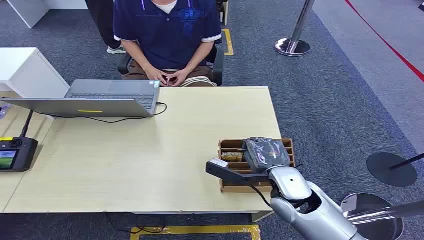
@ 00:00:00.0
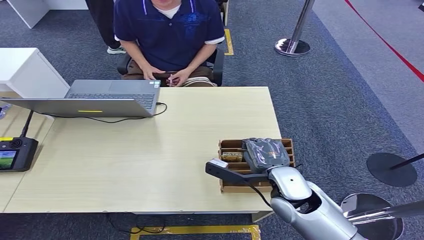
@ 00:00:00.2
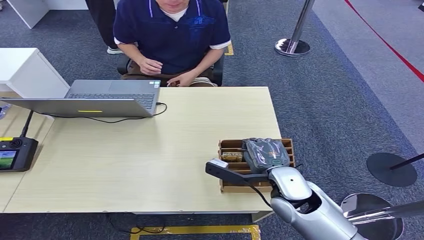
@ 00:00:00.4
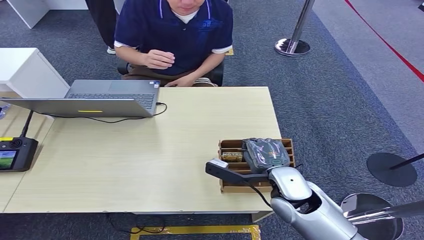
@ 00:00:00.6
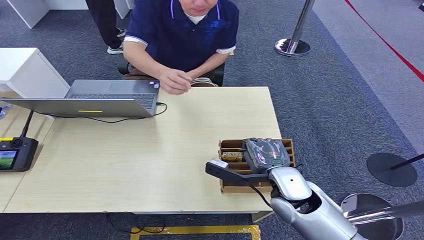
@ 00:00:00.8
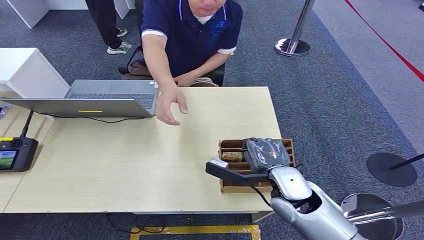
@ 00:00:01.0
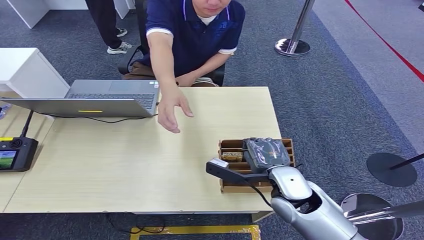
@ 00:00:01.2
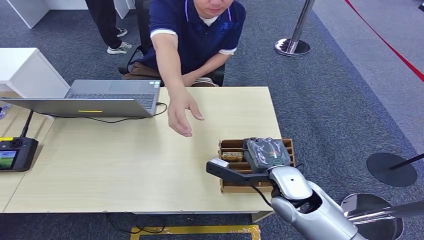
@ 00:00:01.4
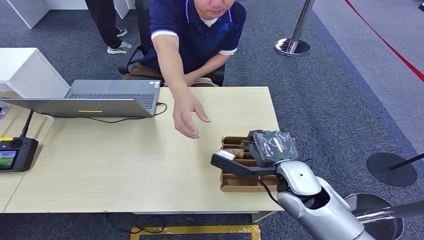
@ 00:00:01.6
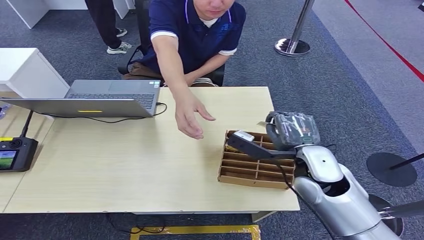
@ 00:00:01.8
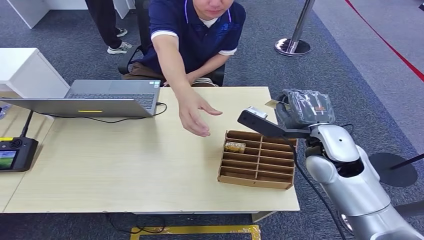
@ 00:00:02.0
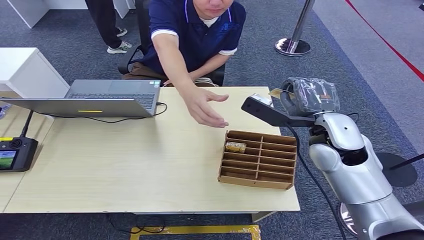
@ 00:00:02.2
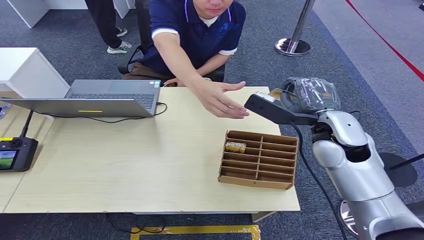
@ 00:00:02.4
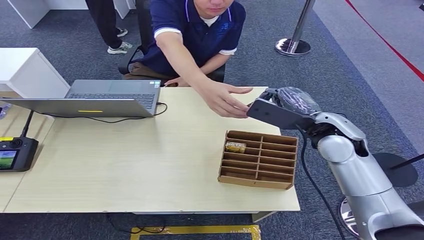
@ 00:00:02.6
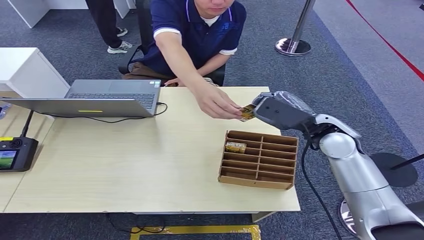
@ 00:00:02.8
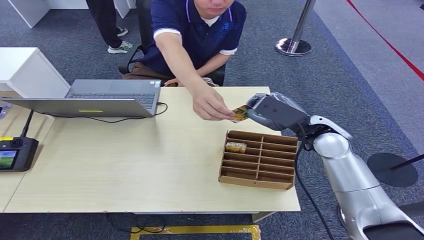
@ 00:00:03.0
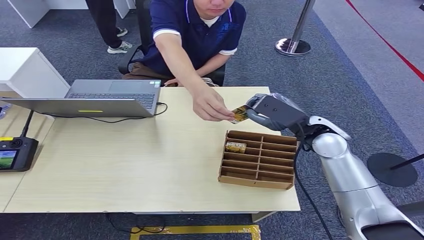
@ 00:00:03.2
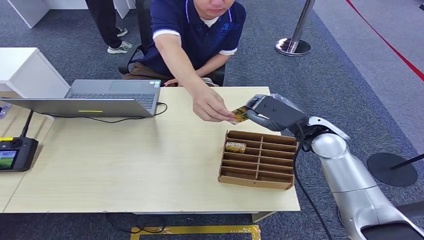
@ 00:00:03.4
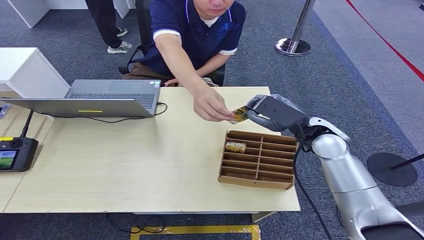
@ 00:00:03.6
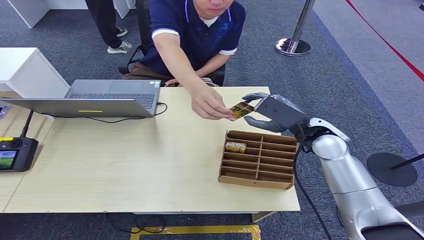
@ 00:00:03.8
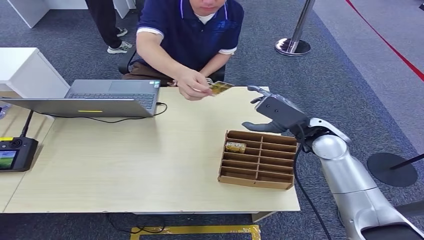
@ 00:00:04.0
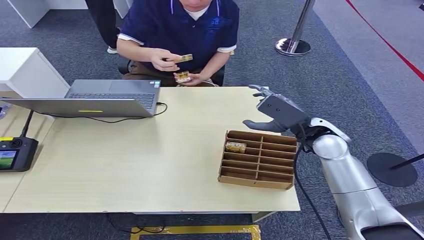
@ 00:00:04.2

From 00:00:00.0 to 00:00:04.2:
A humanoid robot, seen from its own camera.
Step, from 00:00:00.0 to 00:00:02.2: Pick up the key card from the card box.
Step, from 00:00:02.4 to 00:00:04.0: Hand the key card to the target.
From 00:00:01.4 to 00:00:02.8: The right hand travels forward, upward and to the right by about 15 cm.
From 00:00:02.8 to 00:00:04.2: There are only small adjustments of the hands.
